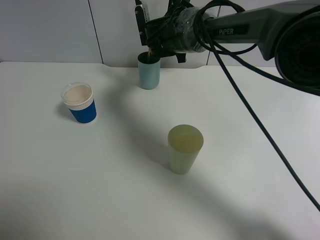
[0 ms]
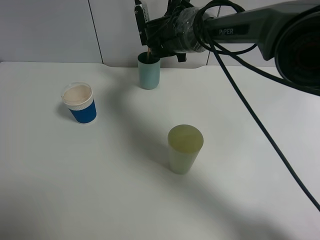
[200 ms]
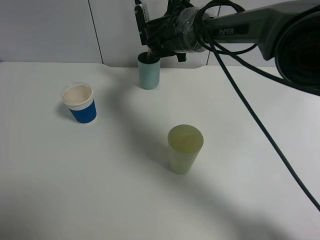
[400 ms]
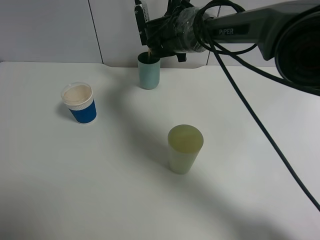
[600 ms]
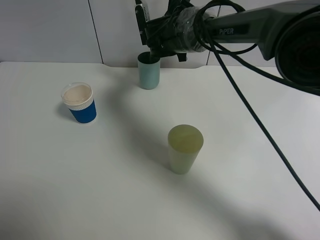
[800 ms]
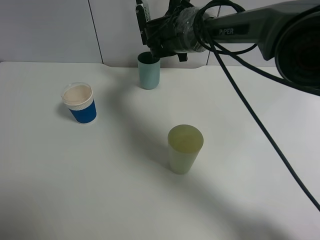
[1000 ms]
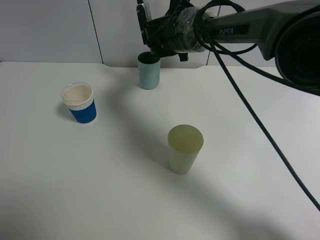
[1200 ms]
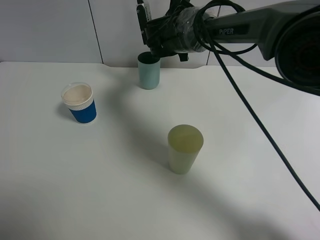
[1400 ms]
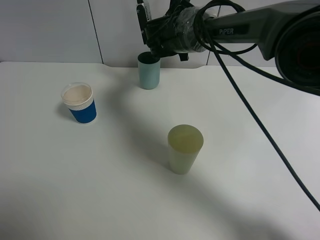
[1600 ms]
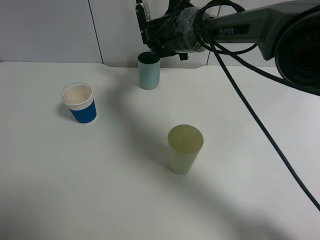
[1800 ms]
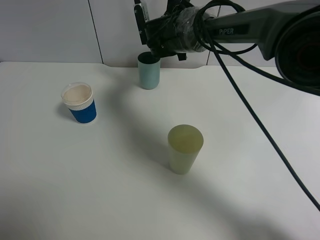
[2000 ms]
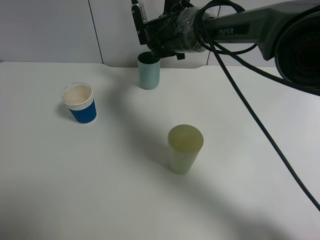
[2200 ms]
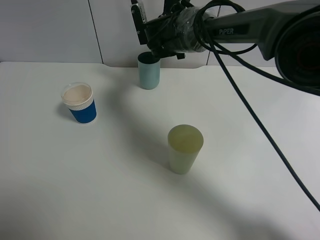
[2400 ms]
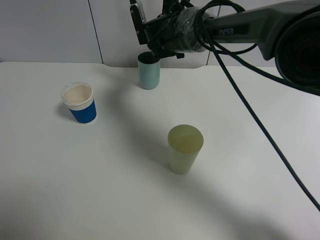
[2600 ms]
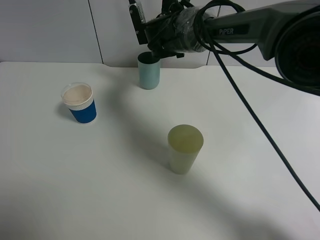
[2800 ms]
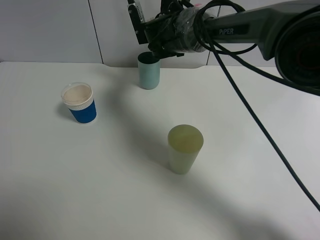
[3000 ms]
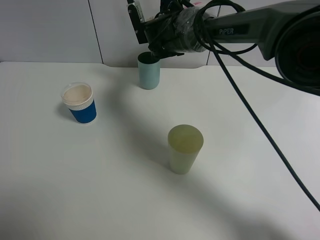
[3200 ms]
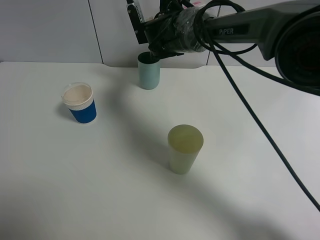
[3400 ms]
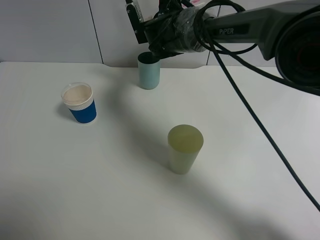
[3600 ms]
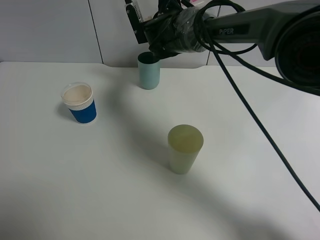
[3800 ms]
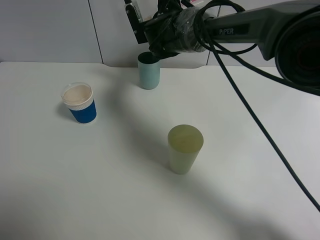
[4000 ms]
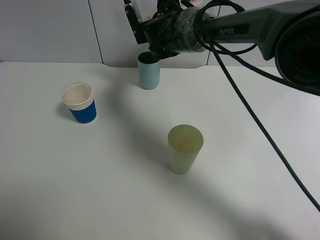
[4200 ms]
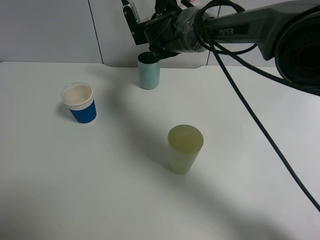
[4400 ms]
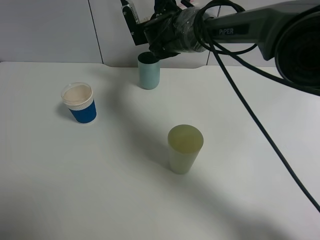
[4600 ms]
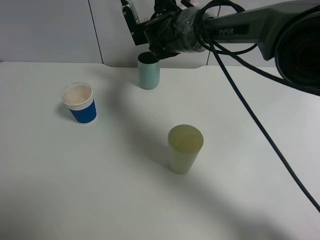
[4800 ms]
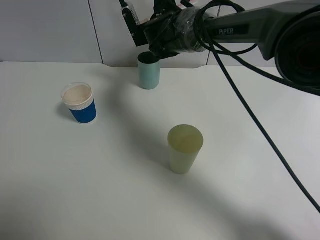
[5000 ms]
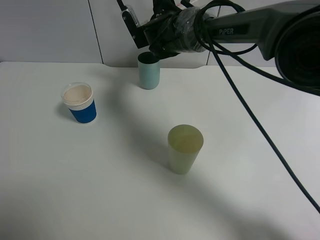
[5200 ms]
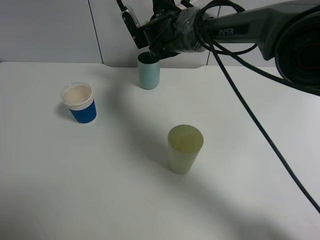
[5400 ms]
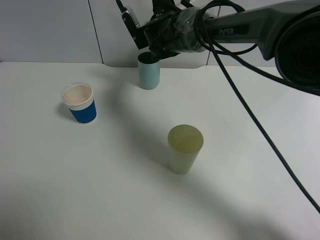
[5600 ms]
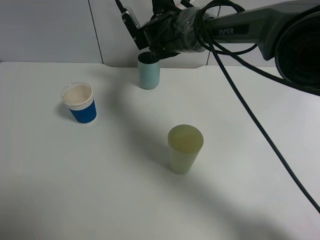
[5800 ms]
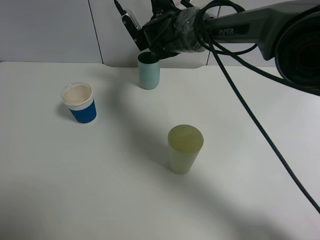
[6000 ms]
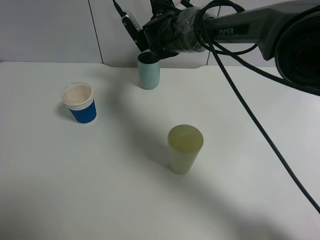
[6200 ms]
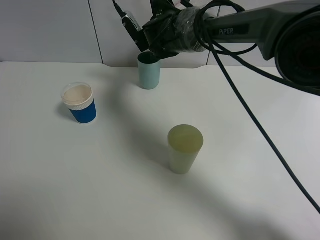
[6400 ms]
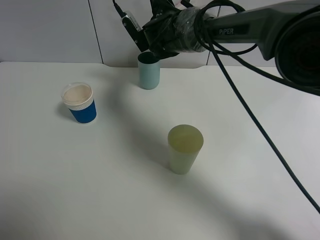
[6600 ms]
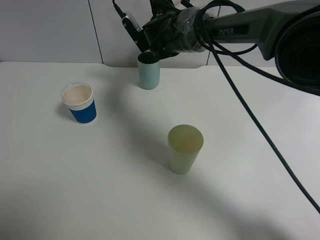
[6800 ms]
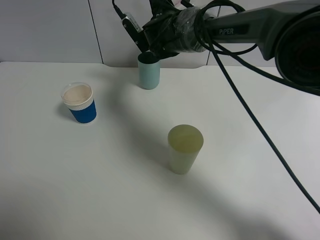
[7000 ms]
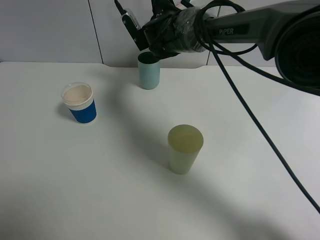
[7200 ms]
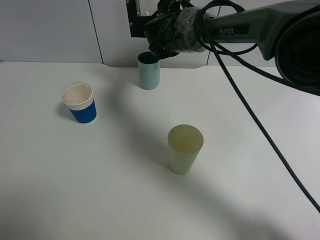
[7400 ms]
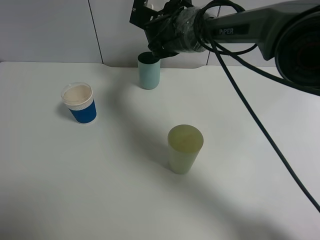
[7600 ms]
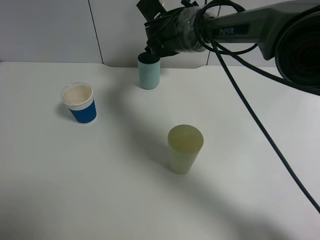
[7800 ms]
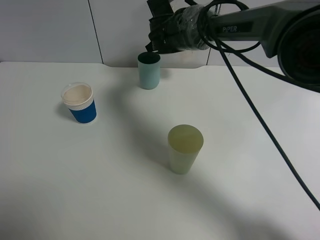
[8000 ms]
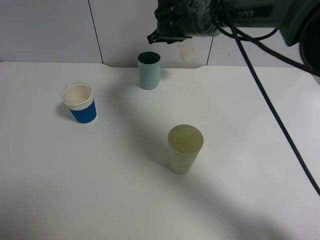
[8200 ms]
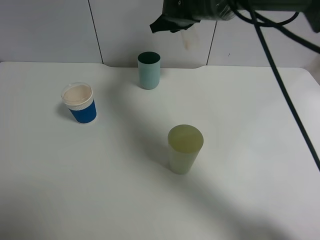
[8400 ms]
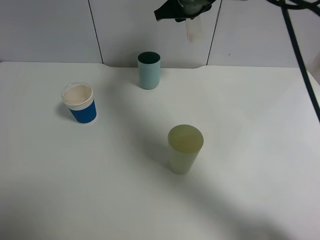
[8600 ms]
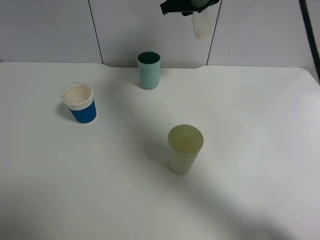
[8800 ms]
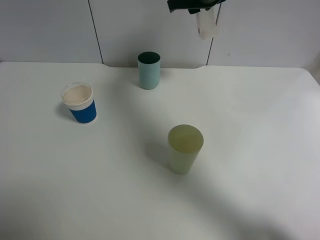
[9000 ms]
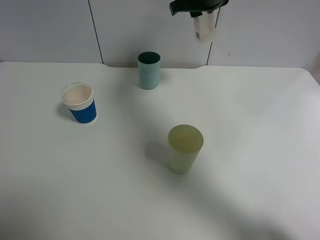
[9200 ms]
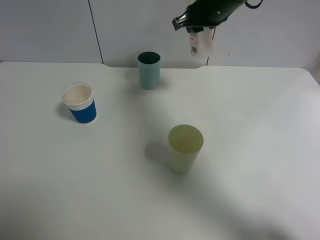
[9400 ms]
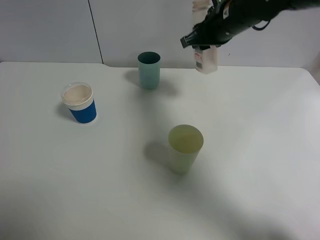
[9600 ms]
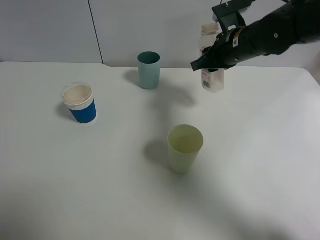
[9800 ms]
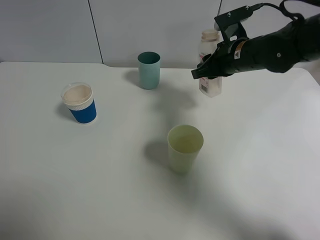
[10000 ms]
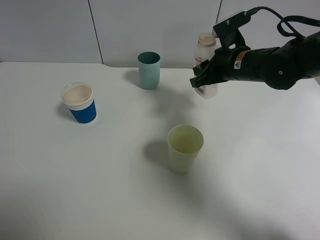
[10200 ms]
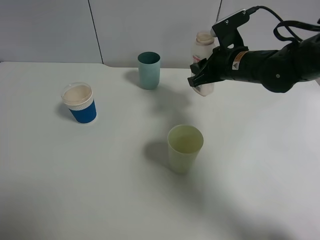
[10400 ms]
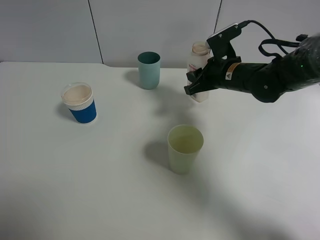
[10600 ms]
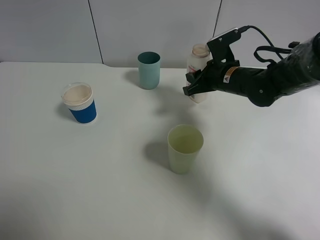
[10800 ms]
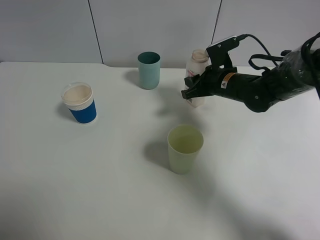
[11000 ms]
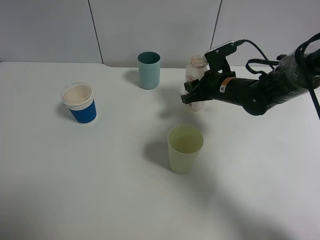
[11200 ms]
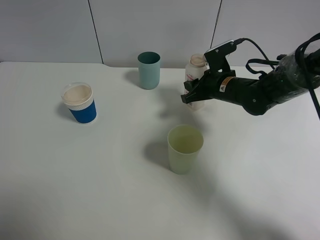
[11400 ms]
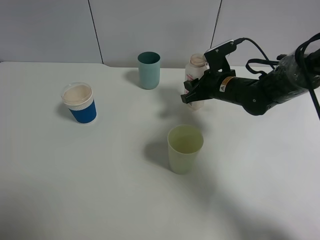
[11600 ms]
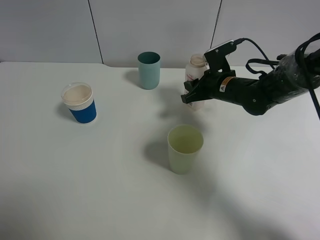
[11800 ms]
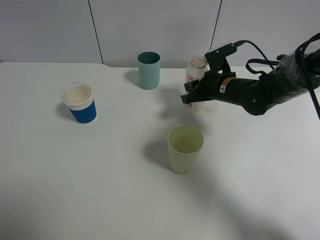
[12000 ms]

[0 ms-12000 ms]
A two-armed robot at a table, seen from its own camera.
Task of the whole recording: use a gripper to hold the bottle of the drink and pour it into a random cup.
Step, 0 ms to 7600 ms: Pour the cranberry juice into the cyan cup with the right gripper.
0 ms to 1600 ms: Both grippers stay put.
1600 ms to 4400 ms: The grippers move only a little.
4400 ms to 6000 ms: There are only small adjustments of the grippers.
7600 ms to 9000 ms: The right gripper moves upward and to the right, about 15 cm.
9000 ms to 10400 ms: The right gripper goes approximately 15 cm downward, backward and to the right.
10400 ms to 12000 ms: The right gripper shifts approximately 5 cm downward.

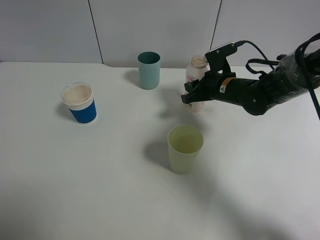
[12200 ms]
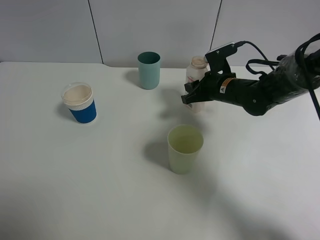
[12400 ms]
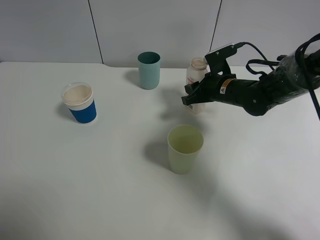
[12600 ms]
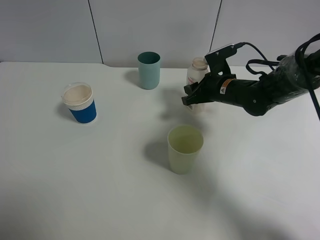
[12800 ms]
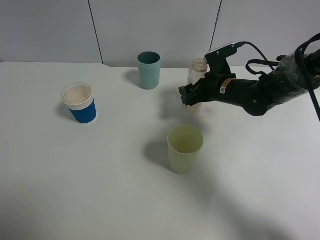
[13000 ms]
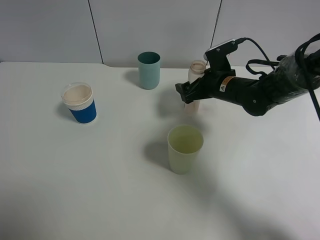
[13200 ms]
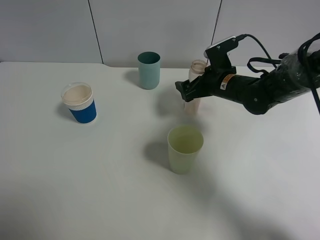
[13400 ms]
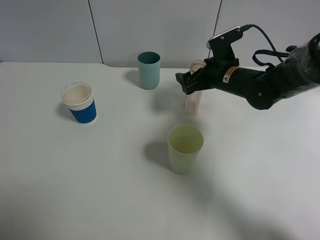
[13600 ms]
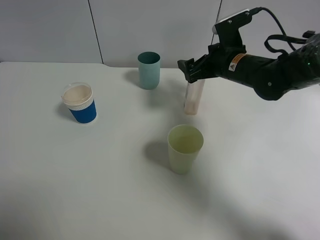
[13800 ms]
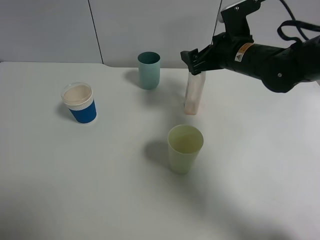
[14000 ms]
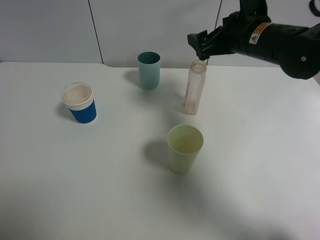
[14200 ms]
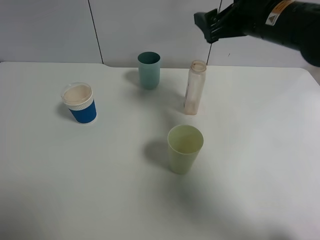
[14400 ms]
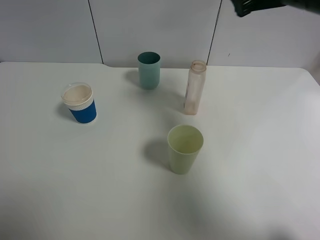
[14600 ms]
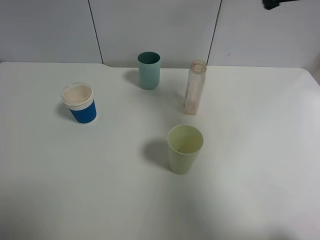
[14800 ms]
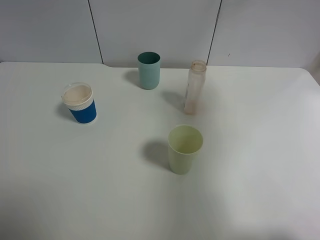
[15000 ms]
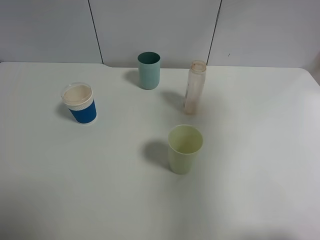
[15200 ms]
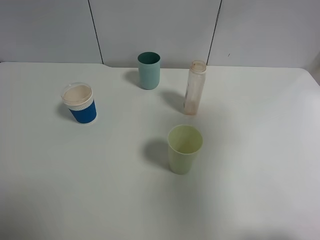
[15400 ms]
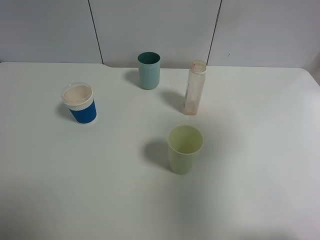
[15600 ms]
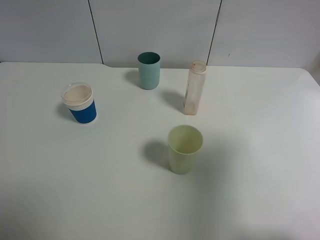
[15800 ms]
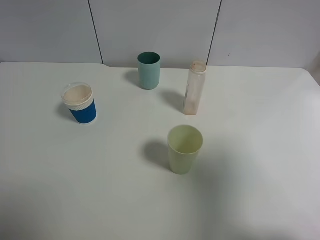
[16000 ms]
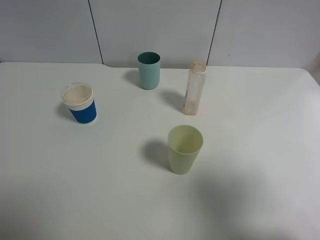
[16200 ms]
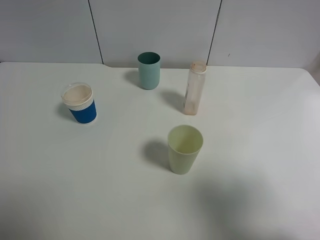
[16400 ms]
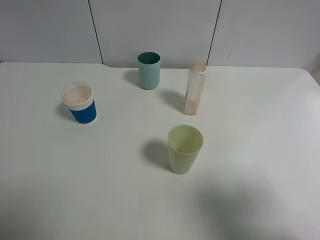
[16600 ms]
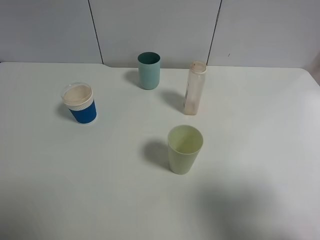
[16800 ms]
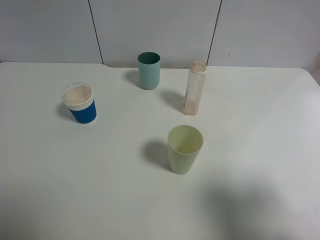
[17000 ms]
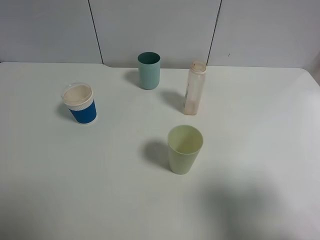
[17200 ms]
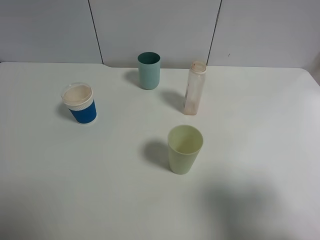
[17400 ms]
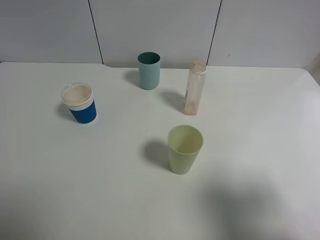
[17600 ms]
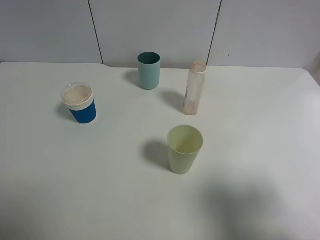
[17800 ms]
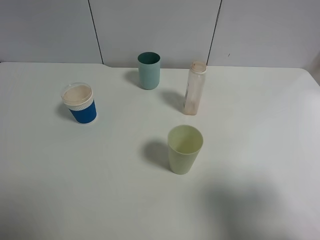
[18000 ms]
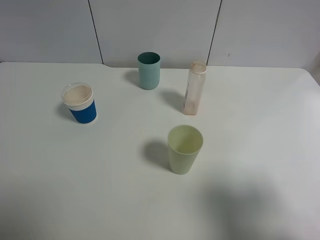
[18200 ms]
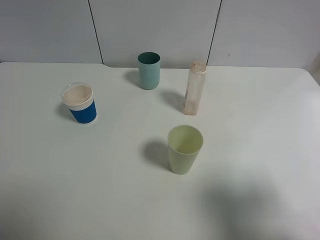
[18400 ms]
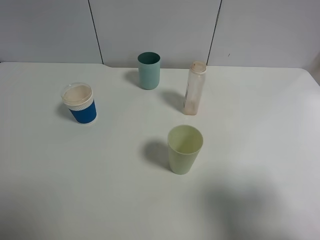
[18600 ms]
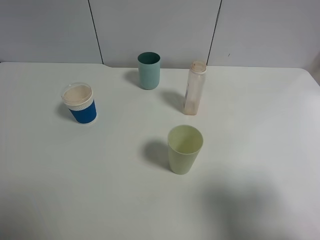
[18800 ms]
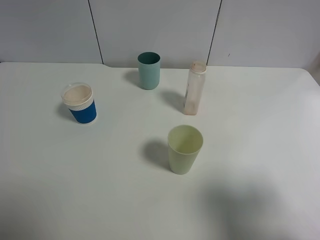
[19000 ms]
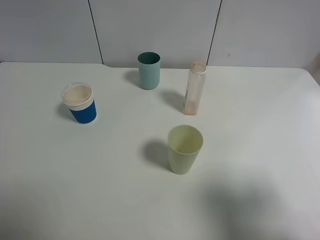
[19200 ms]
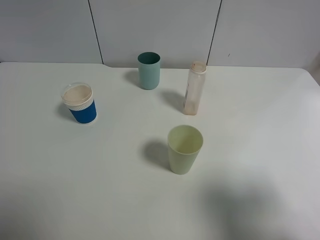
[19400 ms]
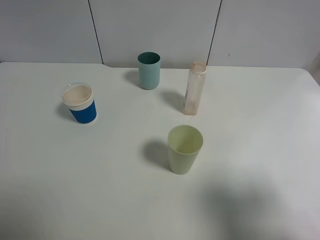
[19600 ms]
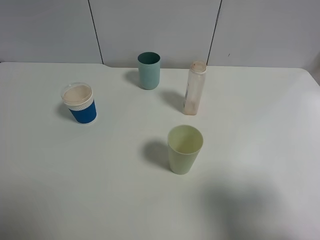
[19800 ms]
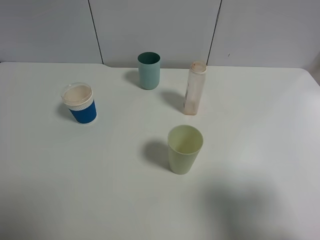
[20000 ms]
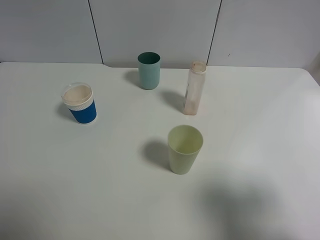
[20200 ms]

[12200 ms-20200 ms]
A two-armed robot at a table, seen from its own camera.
Task of the whole recording: use a gripper to hold the bottle of the drink and pour it into a random cup.
12200 ms to 13800 ms: The right gripper travels upward by roughly 5 cm, and opens its fingers.
13800 ms to 15400 ms: The right gripper goes some 35 cm backward, upward and to the right.
15400 ms to 17000 ms: The right gripper goes about 20 cm downward and backward.
17000 ms to 20200 ms: Neither gripper changes place.

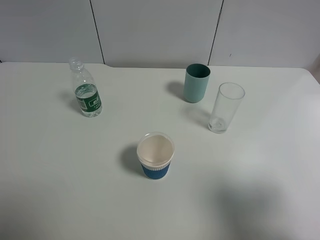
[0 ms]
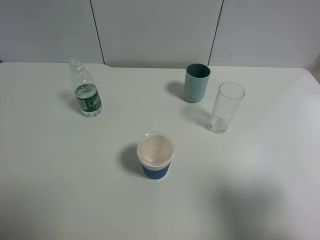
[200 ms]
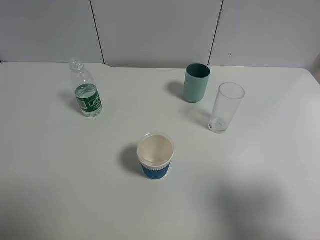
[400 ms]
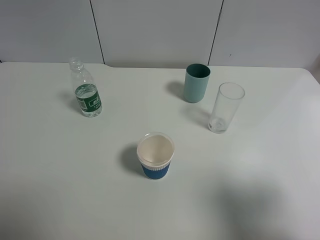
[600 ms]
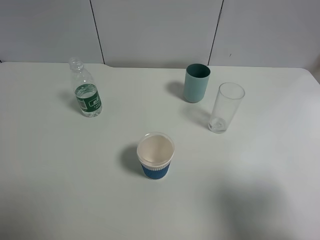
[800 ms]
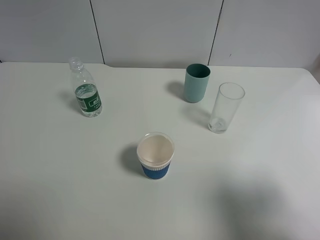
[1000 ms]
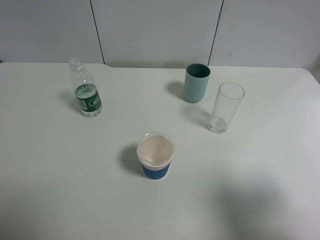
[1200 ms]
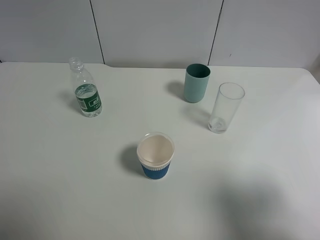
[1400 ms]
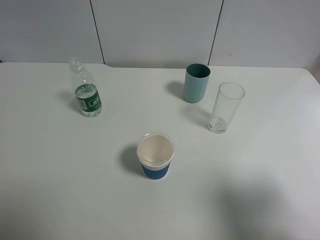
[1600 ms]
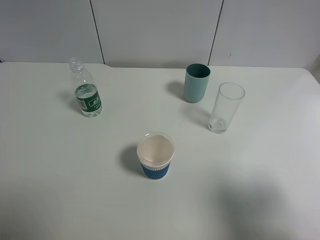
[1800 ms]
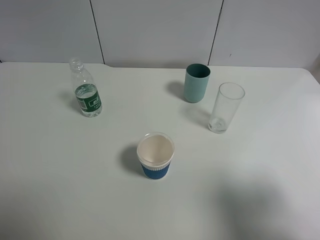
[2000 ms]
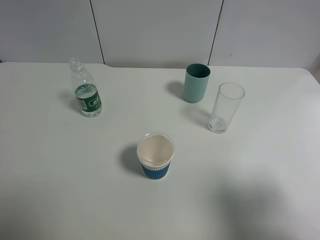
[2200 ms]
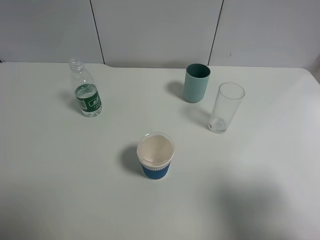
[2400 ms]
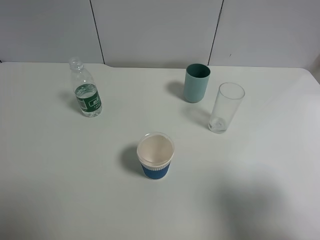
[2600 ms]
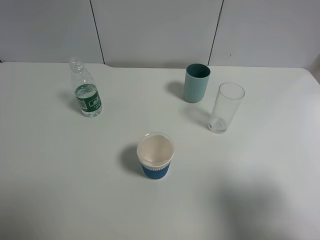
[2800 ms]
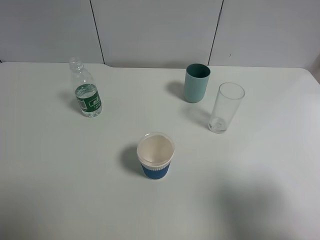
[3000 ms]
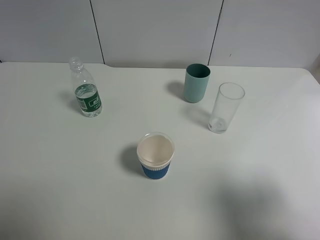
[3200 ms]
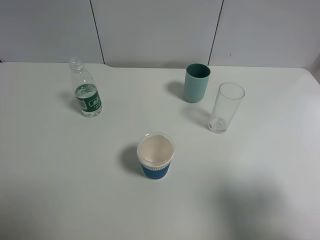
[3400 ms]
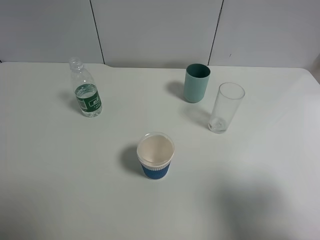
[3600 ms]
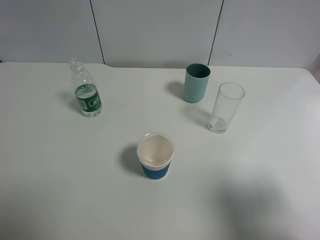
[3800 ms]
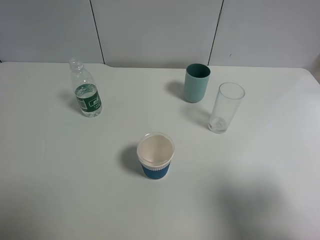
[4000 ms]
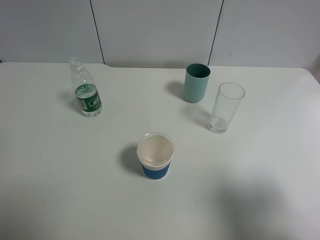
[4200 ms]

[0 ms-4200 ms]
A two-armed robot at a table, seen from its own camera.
Task of the whole recording: use a gripper to hold the bottle of the drink and pour it into a random cup.
0 ms to 2800 ms: Both grippers stay about where they are.
